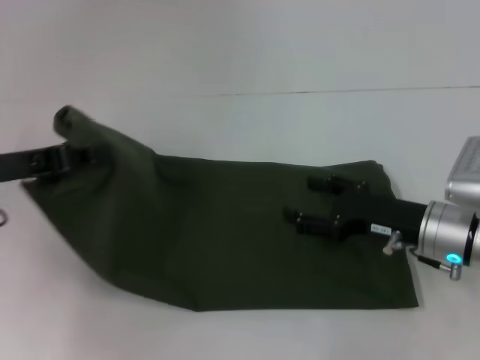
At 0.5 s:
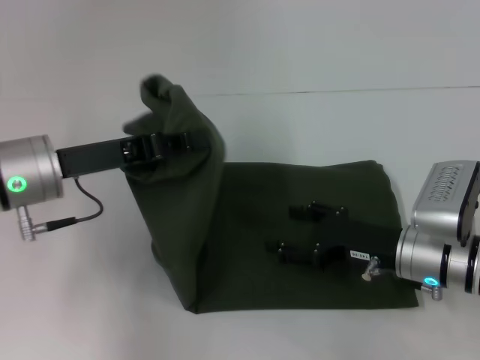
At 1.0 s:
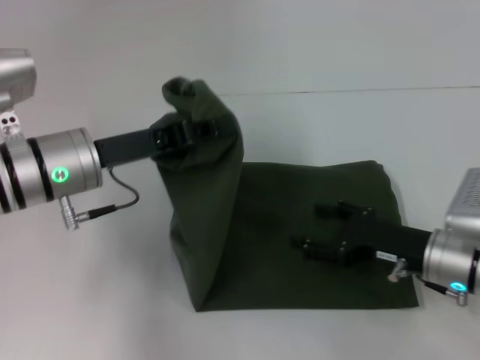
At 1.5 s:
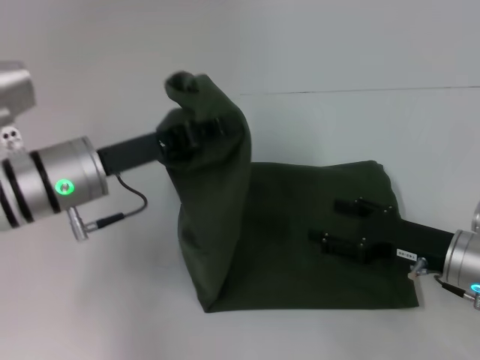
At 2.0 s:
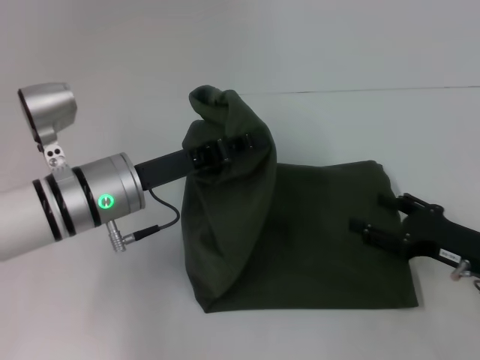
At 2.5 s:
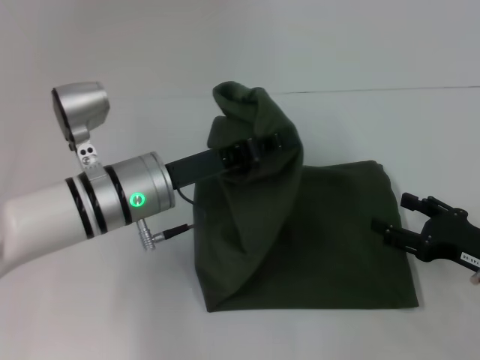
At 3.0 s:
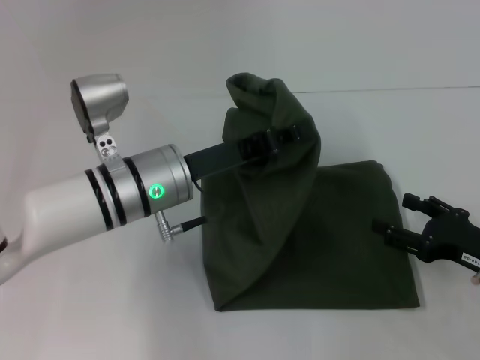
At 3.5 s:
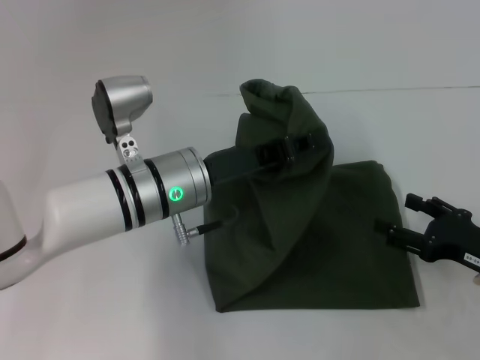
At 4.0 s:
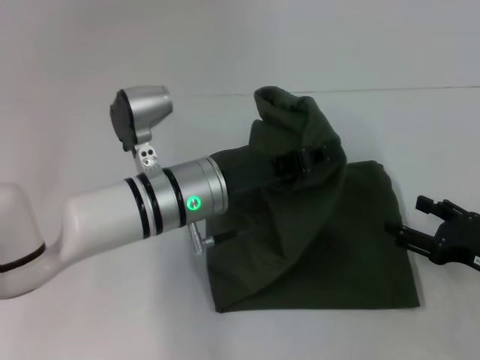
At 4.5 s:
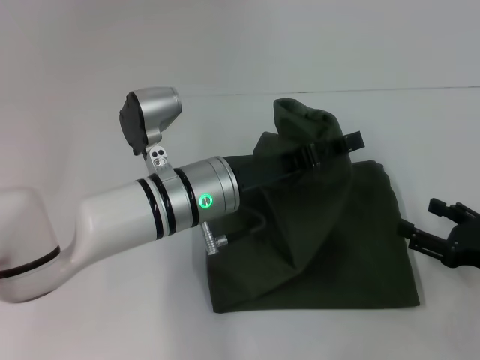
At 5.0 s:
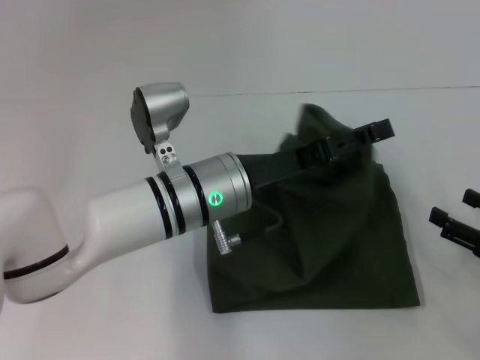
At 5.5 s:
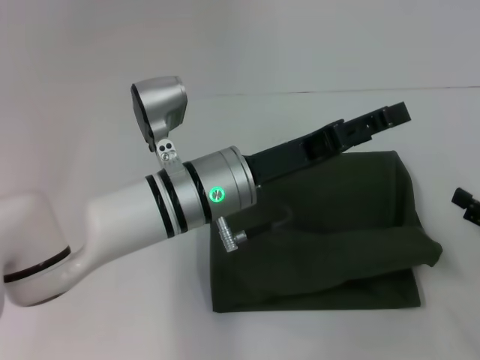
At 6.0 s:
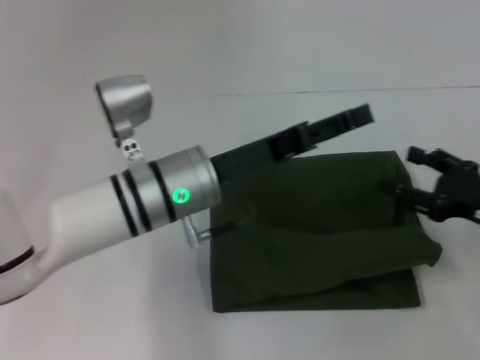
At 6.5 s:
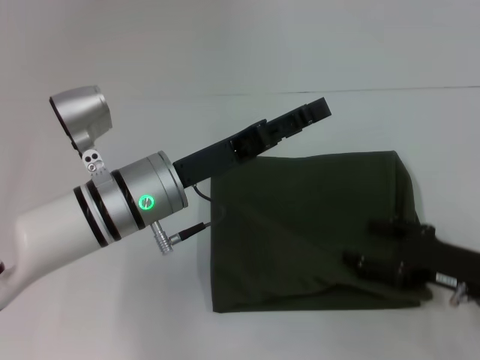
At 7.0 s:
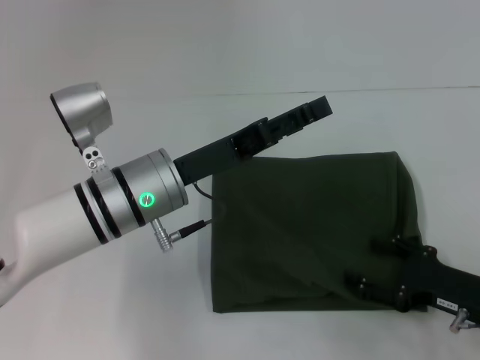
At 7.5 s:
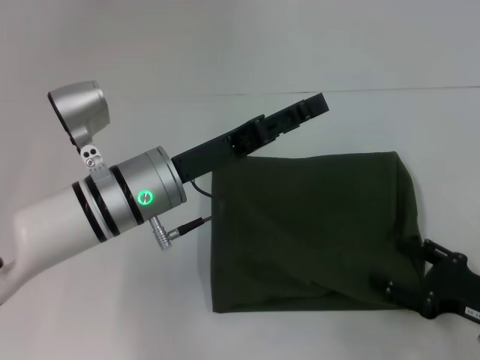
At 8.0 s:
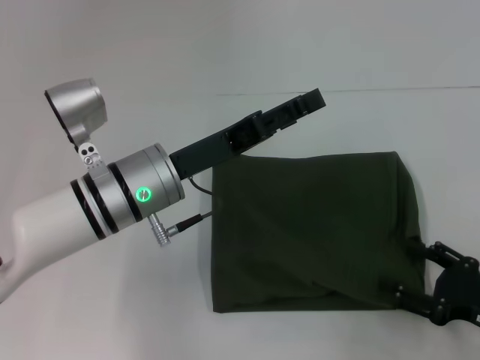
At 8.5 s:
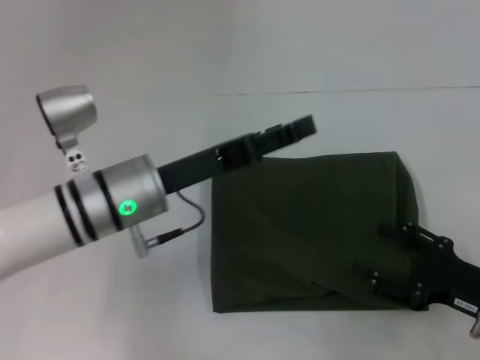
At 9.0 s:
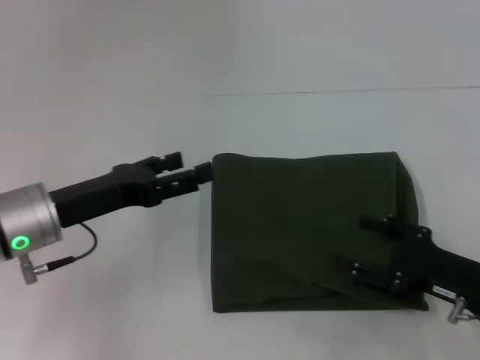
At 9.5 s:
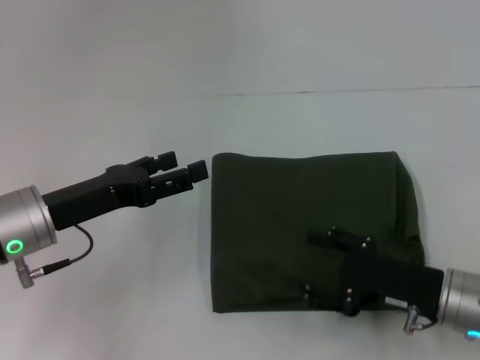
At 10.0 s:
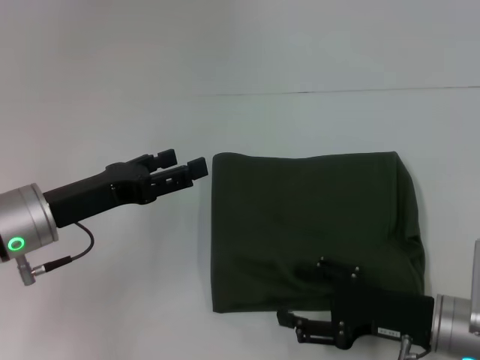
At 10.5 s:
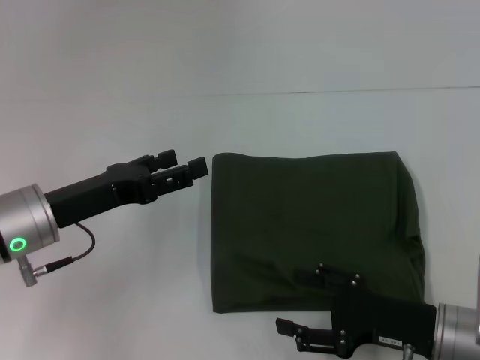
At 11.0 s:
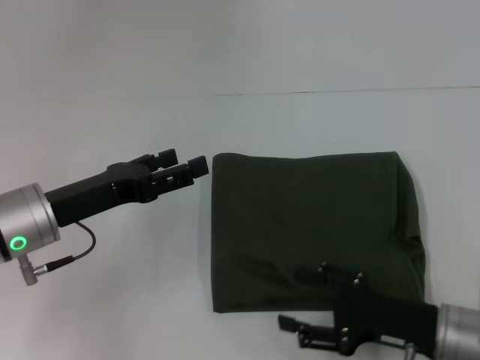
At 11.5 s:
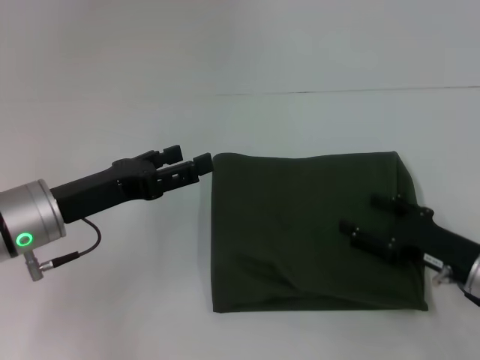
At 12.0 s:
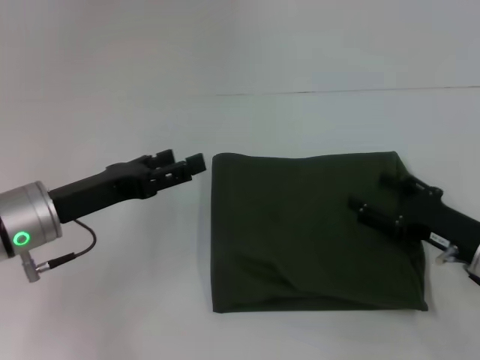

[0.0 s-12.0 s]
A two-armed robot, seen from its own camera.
Step, 0.0 to 5.5 s: Fold the clothes with your left hand.
0.0 to 2.0 s: The left gripper shifts some 15 cm to the right; the right gripper heads to the right, covering about 5 cm.
2.0 to 4.0 s: The left gripper moves to the right, roughly 10 cm.
4.0 to 6.0 s: The left gripper opens its fingers. Meanwhile the right gripper moves approximately 5 cm.
6.0 to 8.0 s: The right gripper goes approximately 10 cm backward and downward.
8.0 to 10.0 s: The two grippers go roughly 10 cm to the left.
10.0 to 12.0 s: The right gripper goes approximately 5 cm to the right.

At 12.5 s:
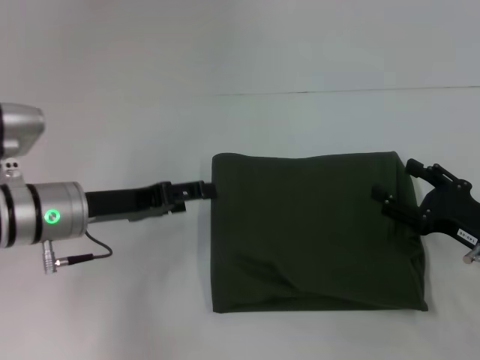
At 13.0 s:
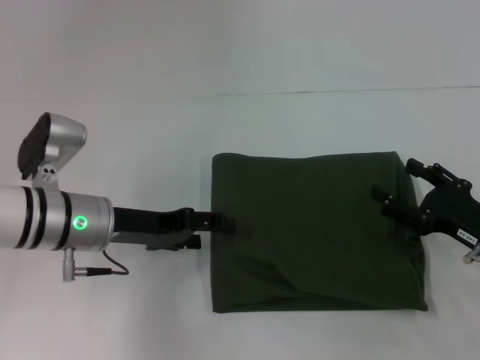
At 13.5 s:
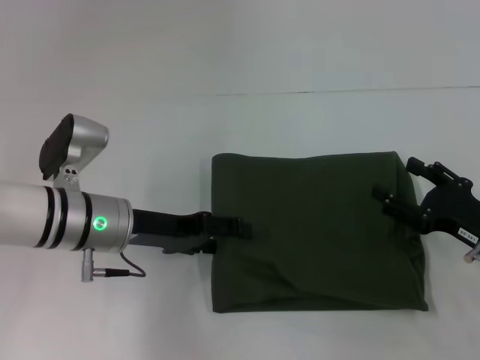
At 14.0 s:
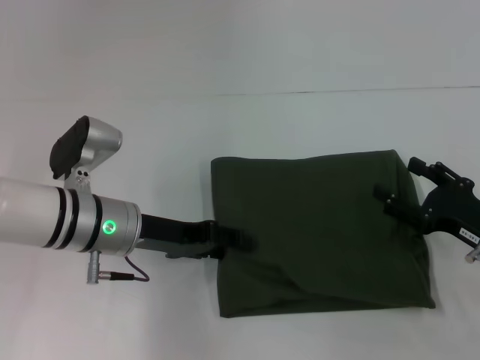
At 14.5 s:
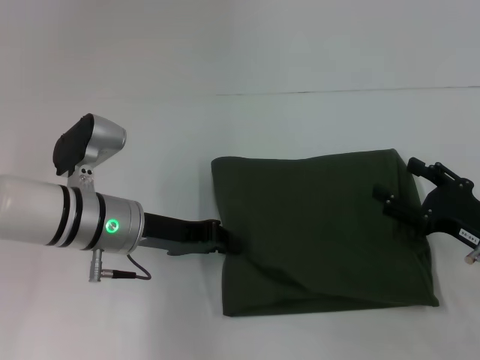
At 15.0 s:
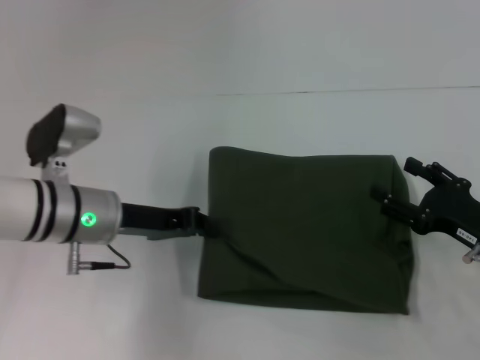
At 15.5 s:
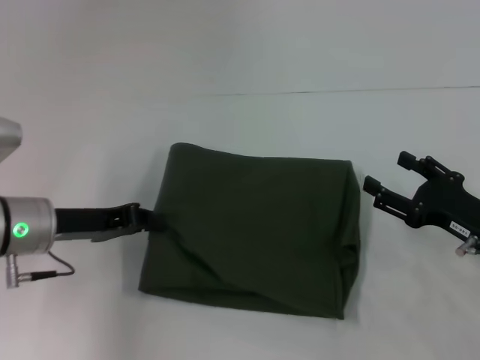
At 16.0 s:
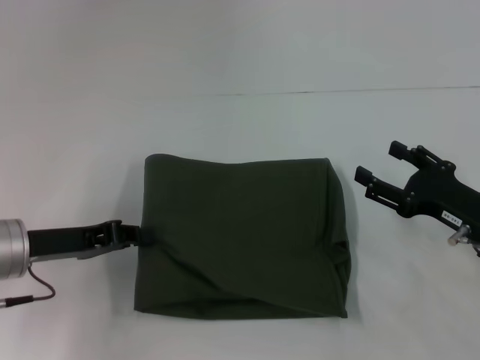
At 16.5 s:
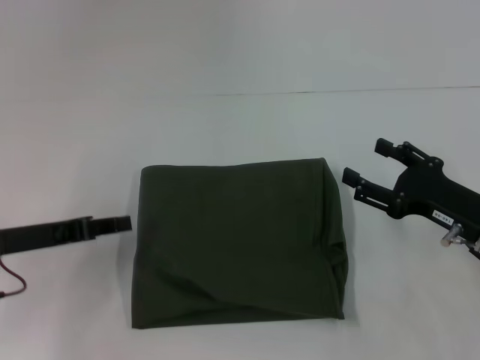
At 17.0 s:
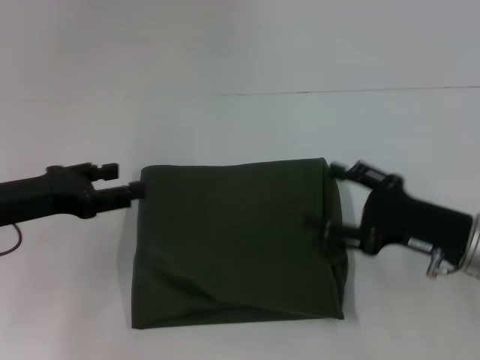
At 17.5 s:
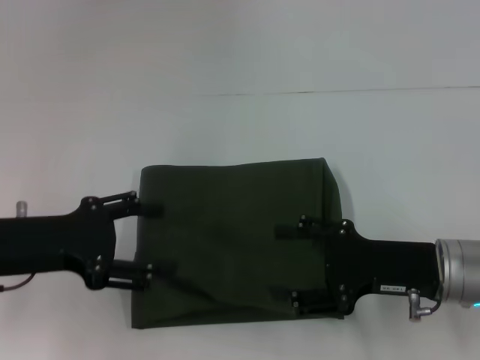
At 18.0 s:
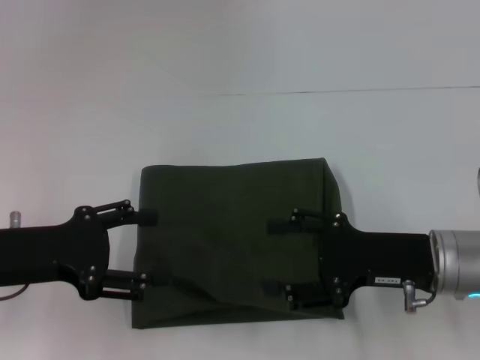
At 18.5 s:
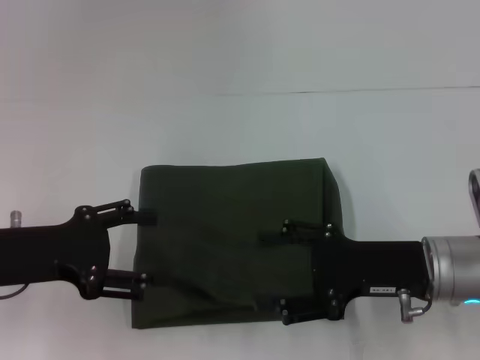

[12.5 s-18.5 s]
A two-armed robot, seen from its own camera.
12.5 to 14.5 s: The left gripper goes approximately 5 cm to the right, and closes.
14.5 to 16.5 s: The left gripper is displaced to the left by about 10 cm.
16.5 to 18.5 s: The left gripper opens, while the right gripper moves to the left, approximately 5 cm.

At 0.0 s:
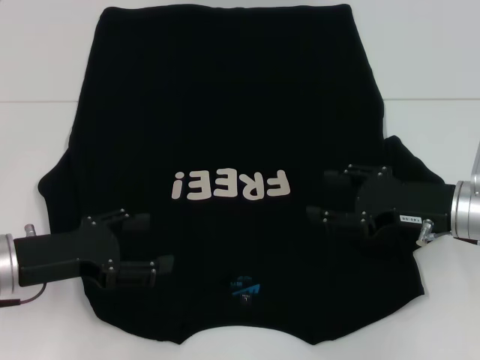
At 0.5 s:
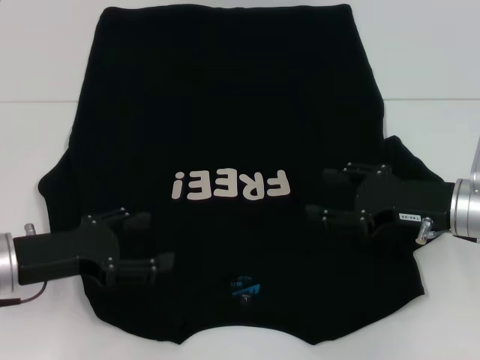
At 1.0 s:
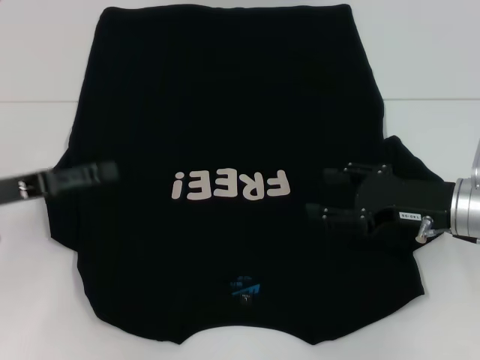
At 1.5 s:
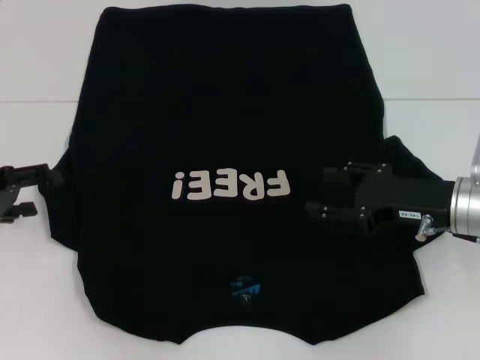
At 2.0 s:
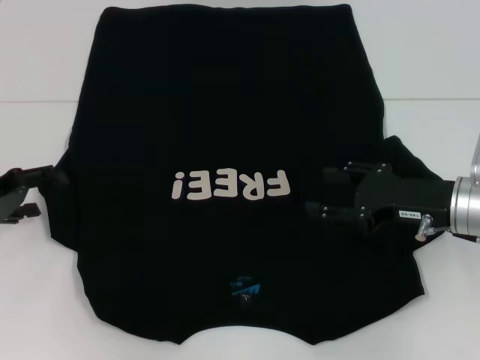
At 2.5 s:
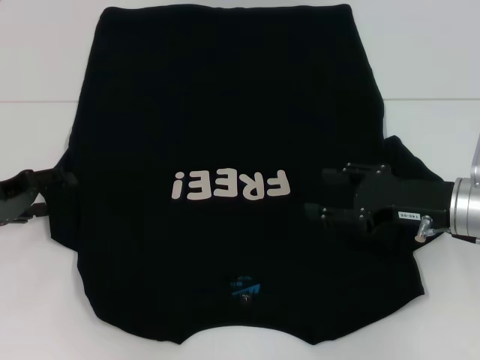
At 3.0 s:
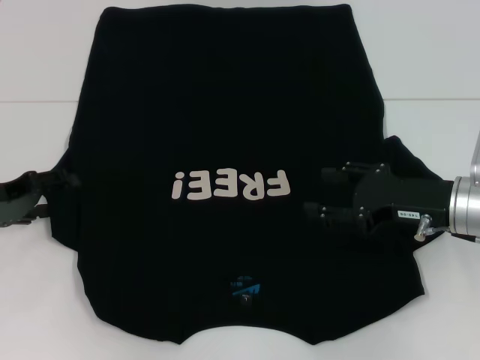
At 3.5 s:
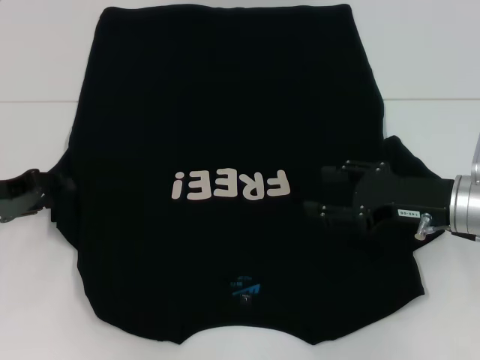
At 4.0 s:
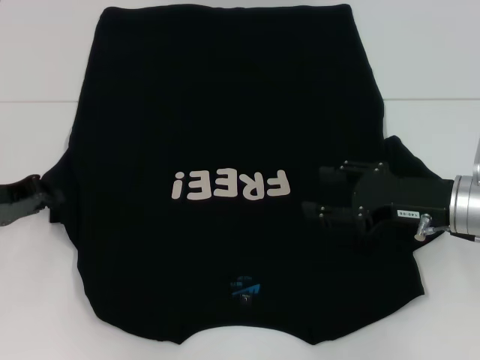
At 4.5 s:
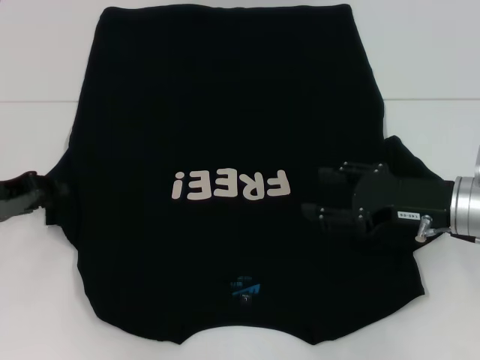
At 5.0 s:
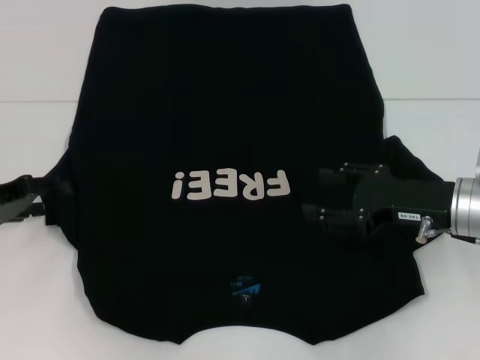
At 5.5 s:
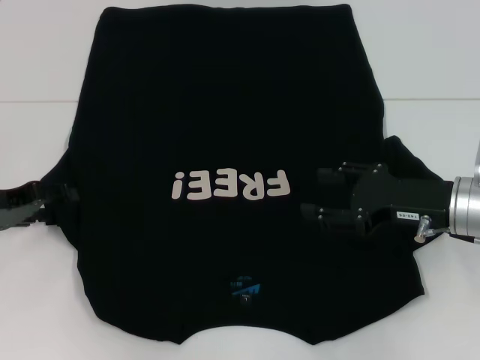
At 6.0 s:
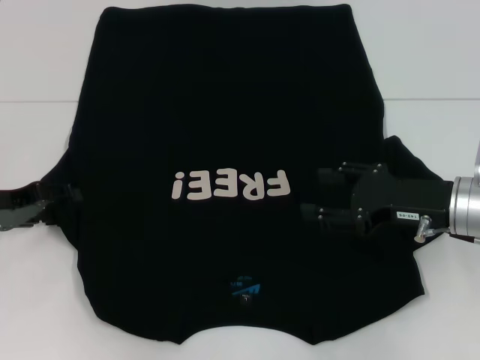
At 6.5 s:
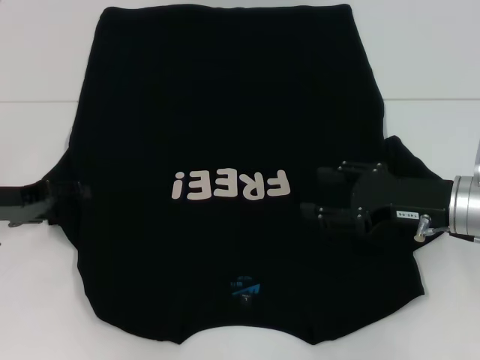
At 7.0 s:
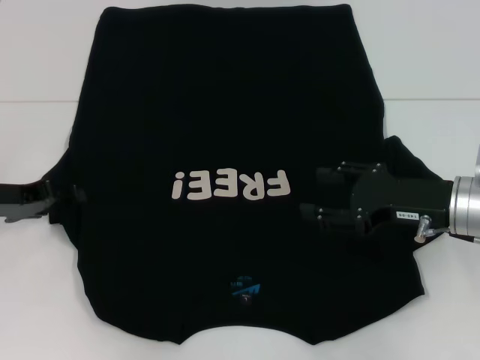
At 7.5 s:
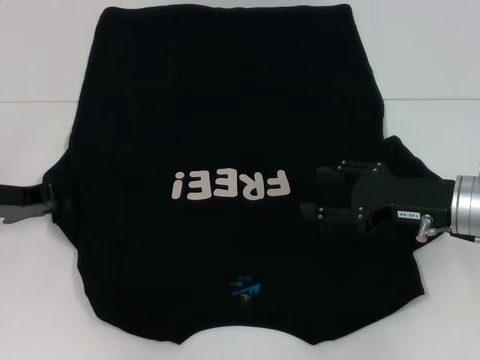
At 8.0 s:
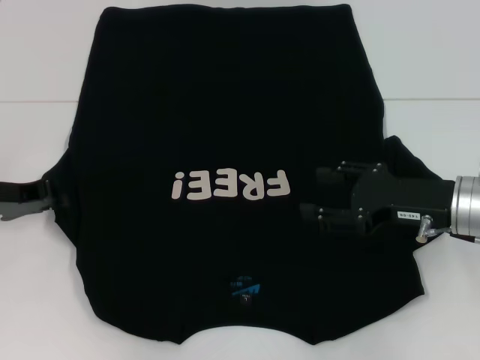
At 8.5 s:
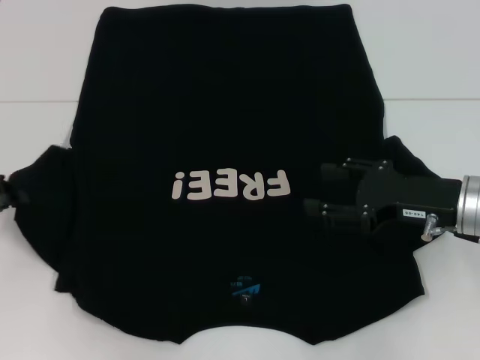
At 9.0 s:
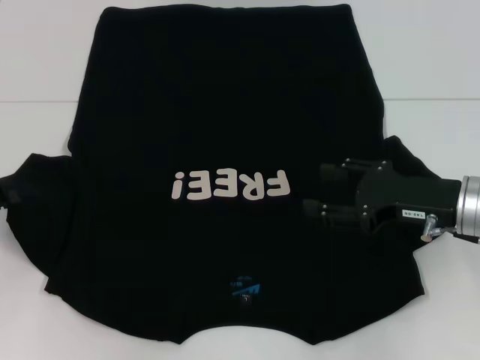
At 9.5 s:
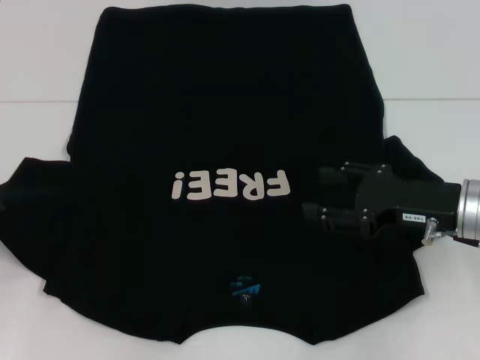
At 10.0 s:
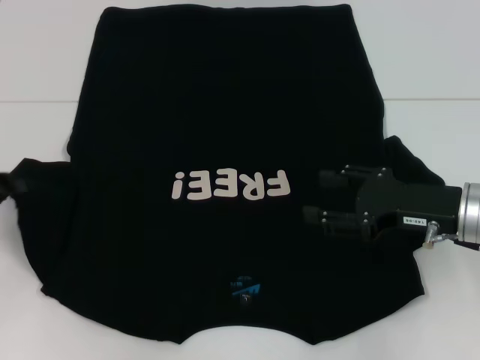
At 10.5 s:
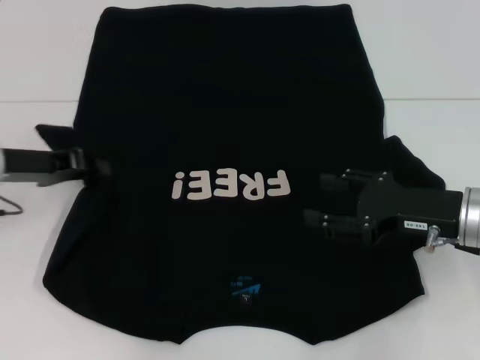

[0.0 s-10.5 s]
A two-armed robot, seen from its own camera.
0.0 to 2.0 s: The left gripper shifts some 10 cm to the left and forward.
2.0 to 4.0 s: The left gripper closes its fingers.
4.0 to 6.5 s: The left gripper opens its fingers.
6.5 to 8.5 s: The left gripper closes.
8.5 to 10.5 s: The left gripper shifts some 10 cm to the right.
